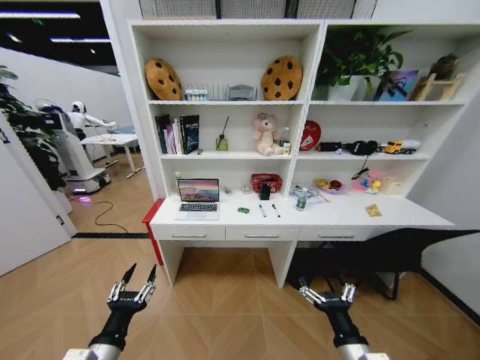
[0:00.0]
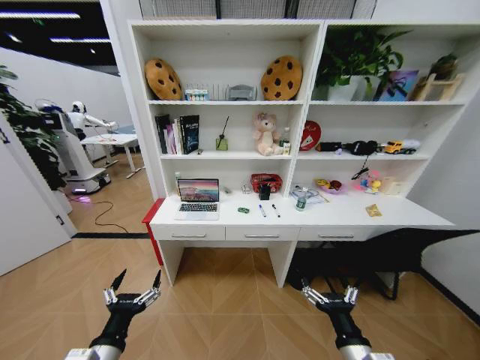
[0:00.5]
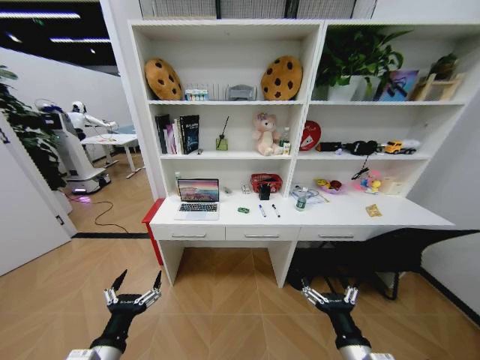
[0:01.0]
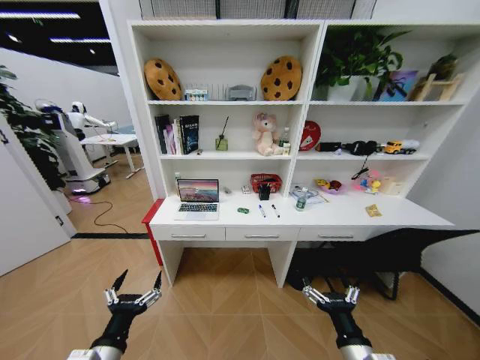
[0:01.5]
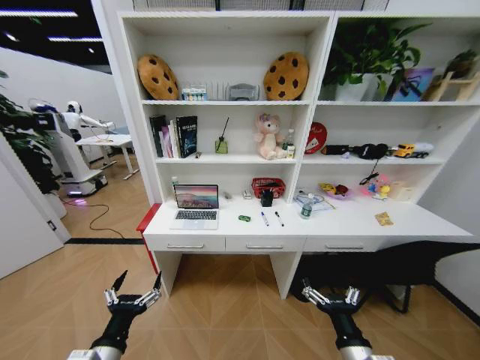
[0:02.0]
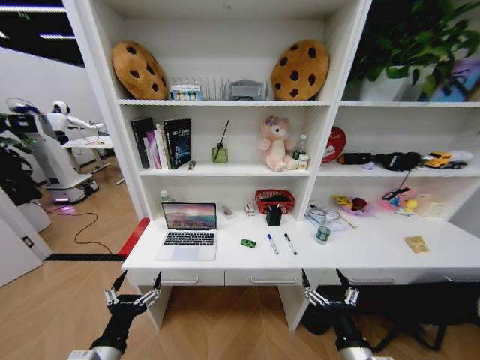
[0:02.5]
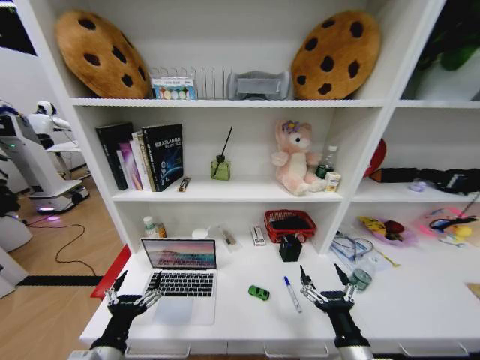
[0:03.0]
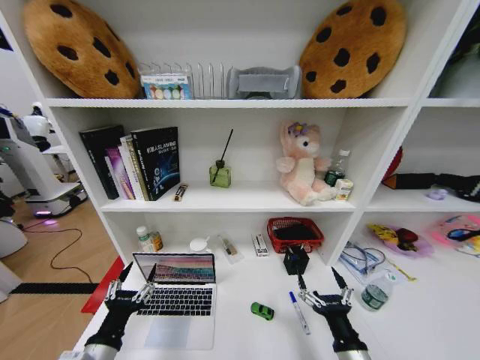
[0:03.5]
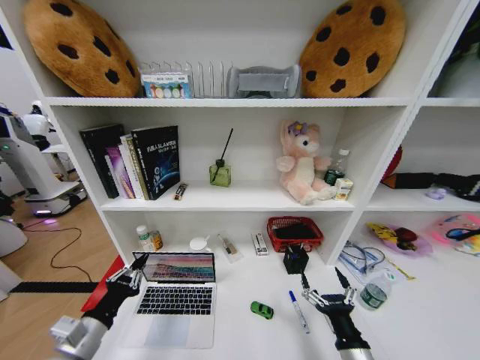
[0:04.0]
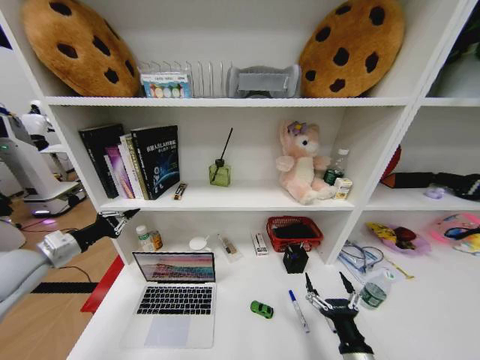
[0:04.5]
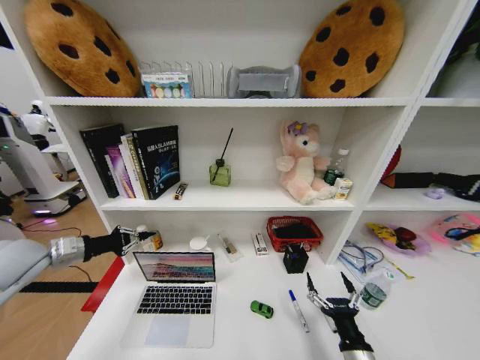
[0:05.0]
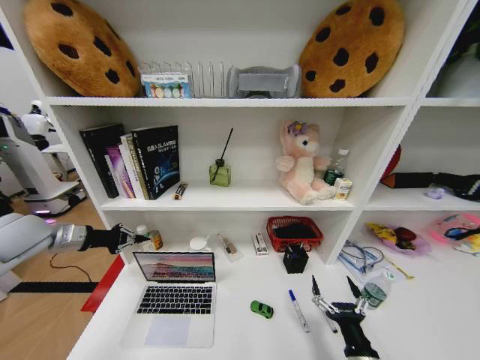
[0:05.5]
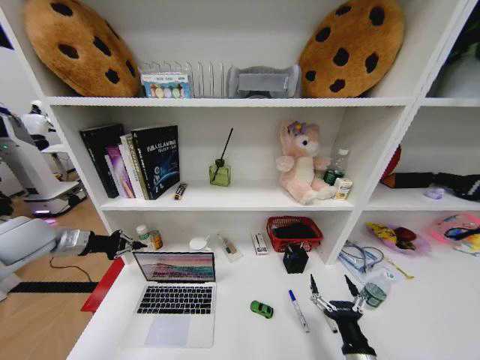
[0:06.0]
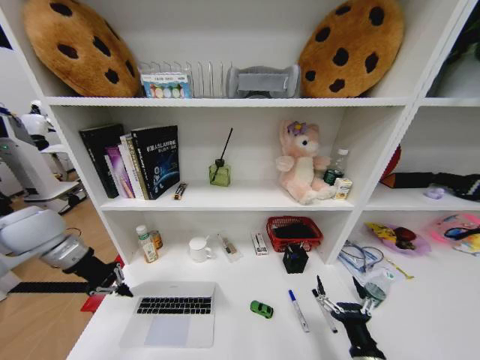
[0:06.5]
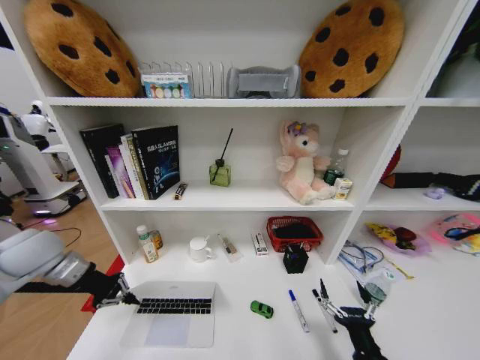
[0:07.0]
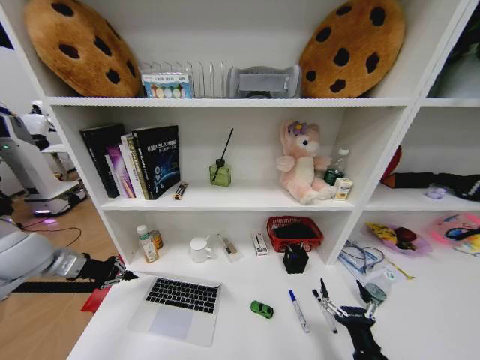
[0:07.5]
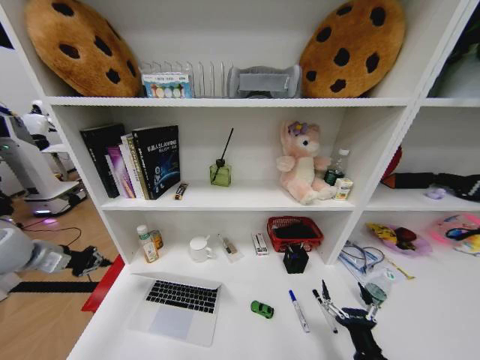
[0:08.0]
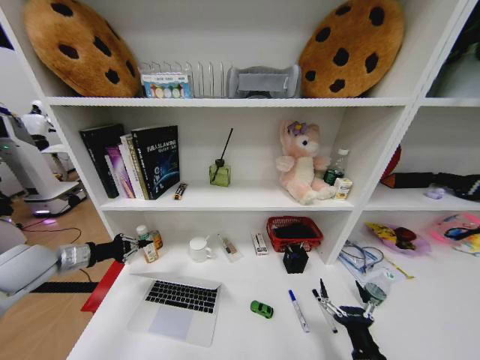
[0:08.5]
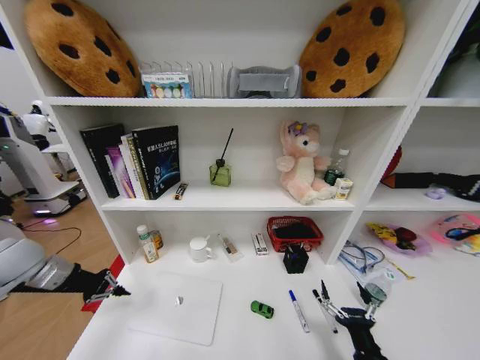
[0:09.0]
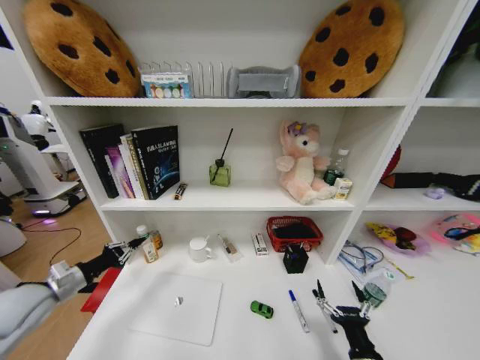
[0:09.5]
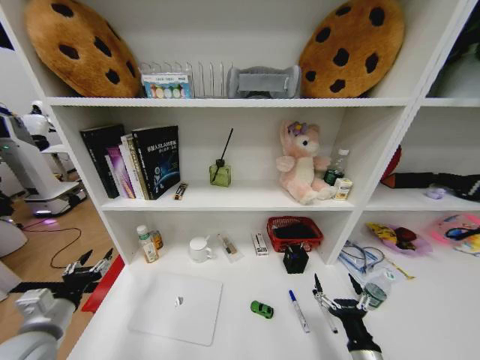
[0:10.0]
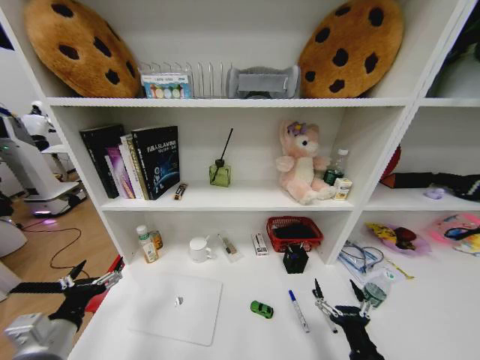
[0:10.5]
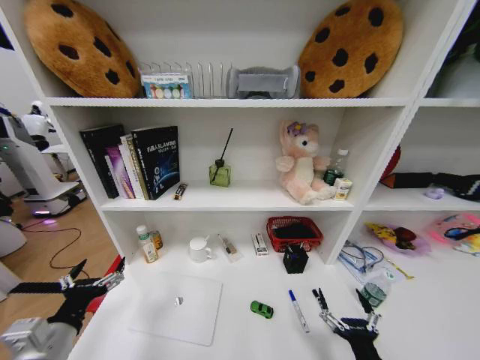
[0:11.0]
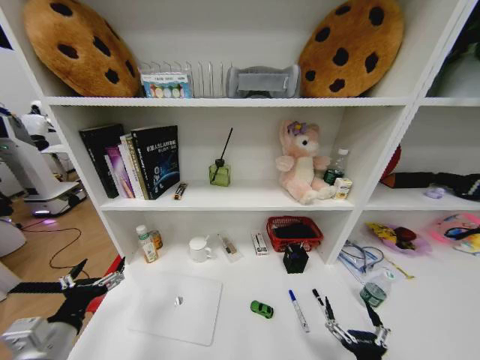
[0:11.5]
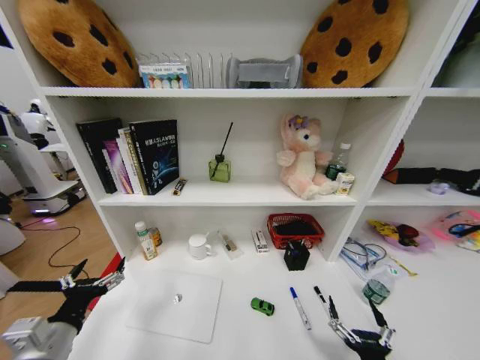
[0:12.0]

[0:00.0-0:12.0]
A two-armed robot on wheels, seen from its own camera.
Task of the whole recording: Organize the objects on the table.
2.0 to 4.0 s: The left gripper travels to the left by about 5 cm, and closes up.
4.0 to 6.0 s: The left gripper shifts some 30 cm forward, upward and to the left.
8.0 to 10.0 s: The left gripper goes approximately 25 cm backward, downward and to the right, and opens.
10.0 to 12.0 s: The right gripper goes some 5 cm backward; the left gripper shifts approximately 10 cm to the right and backward, and opens its fingers.

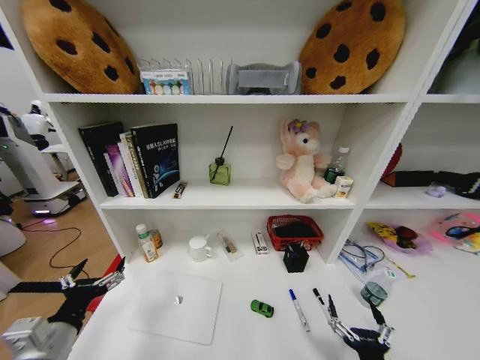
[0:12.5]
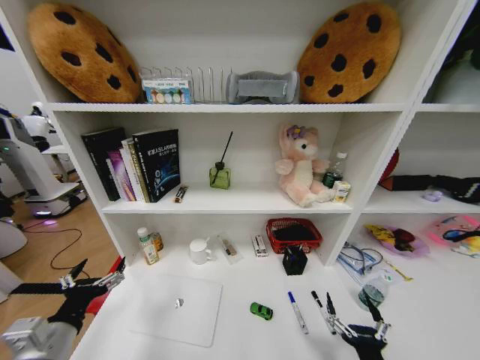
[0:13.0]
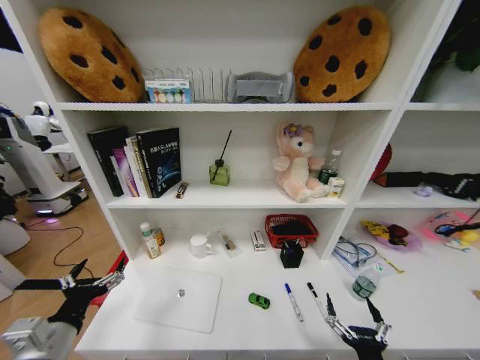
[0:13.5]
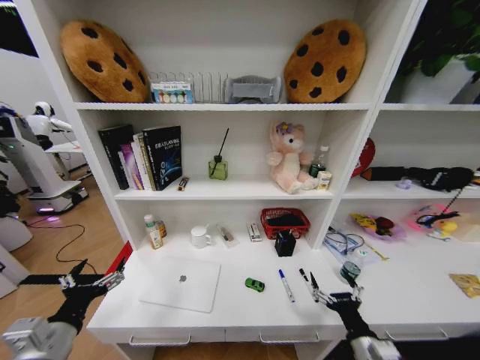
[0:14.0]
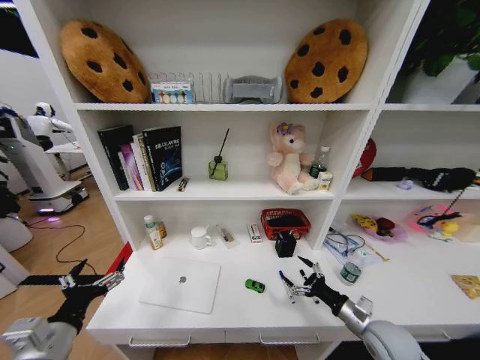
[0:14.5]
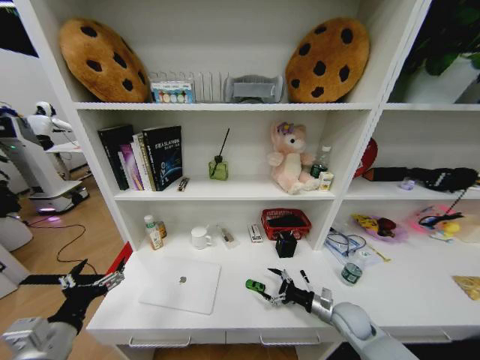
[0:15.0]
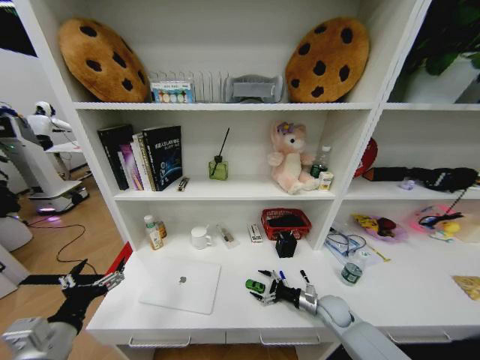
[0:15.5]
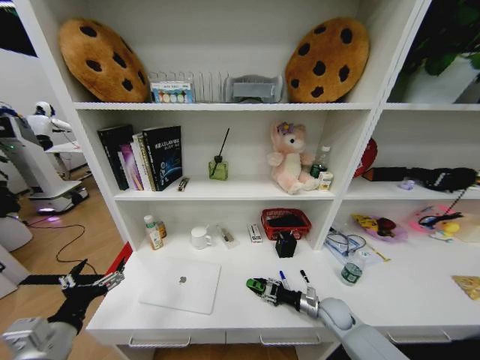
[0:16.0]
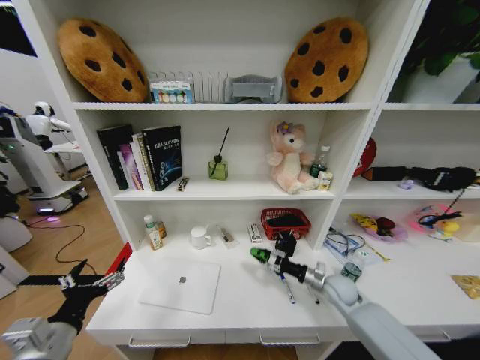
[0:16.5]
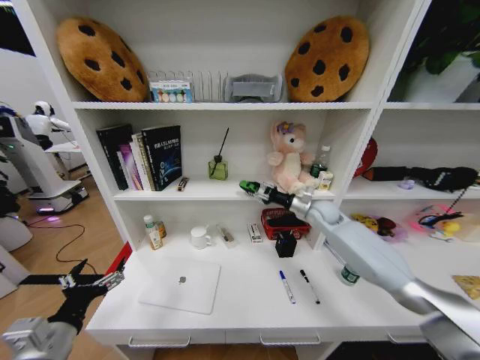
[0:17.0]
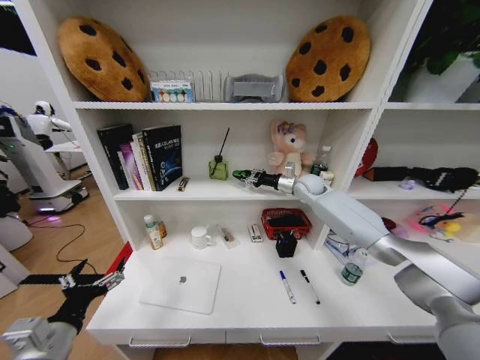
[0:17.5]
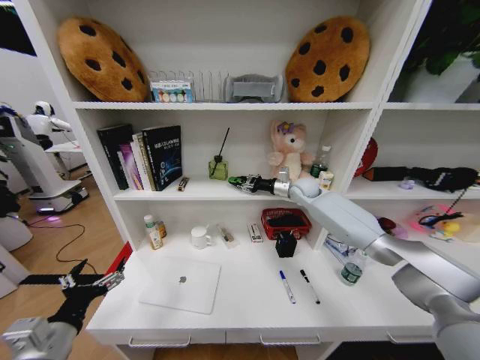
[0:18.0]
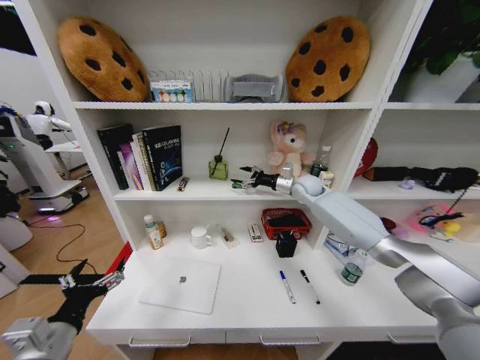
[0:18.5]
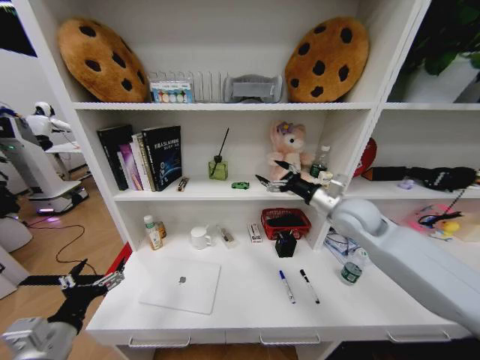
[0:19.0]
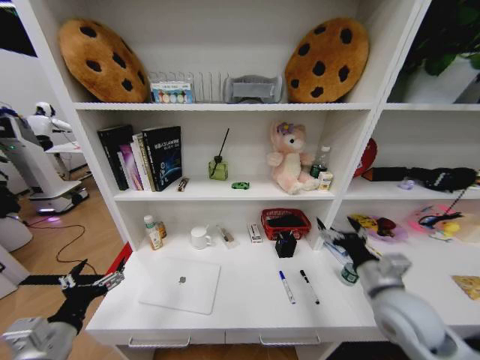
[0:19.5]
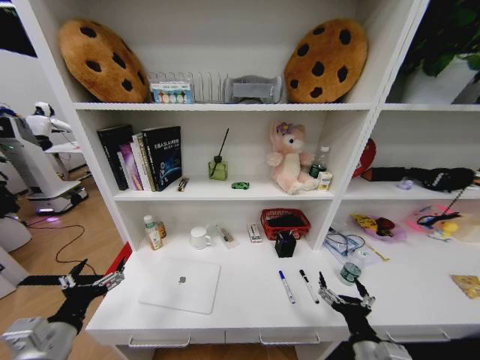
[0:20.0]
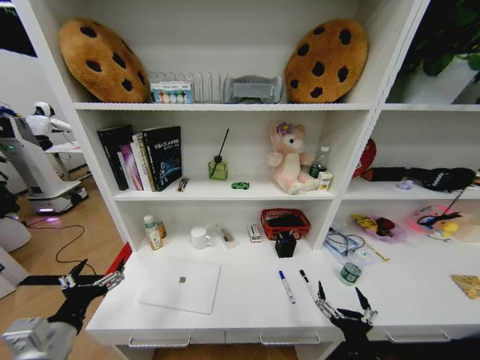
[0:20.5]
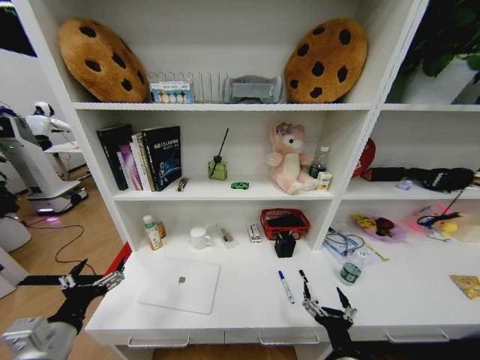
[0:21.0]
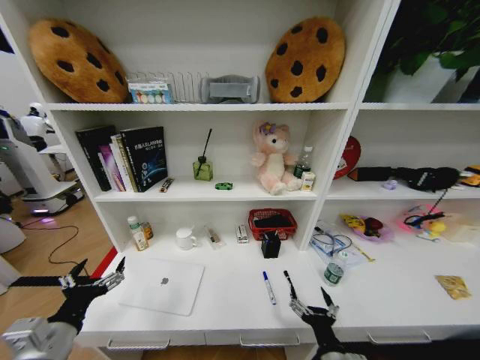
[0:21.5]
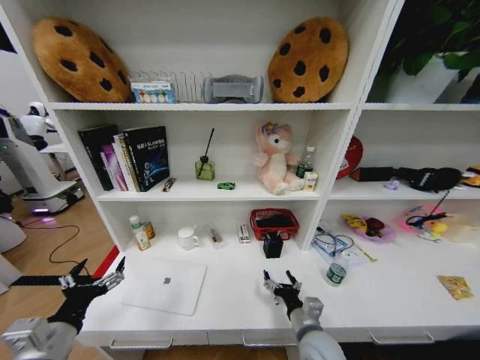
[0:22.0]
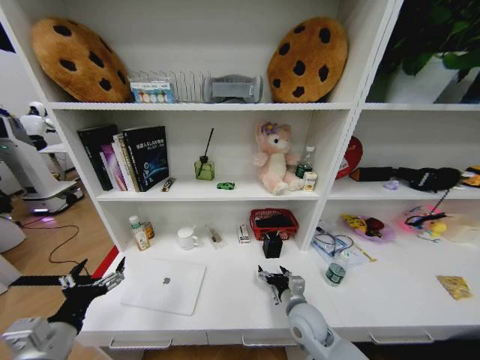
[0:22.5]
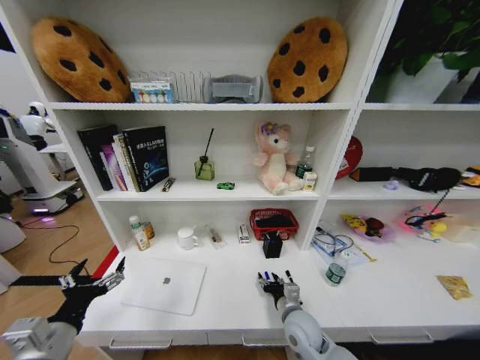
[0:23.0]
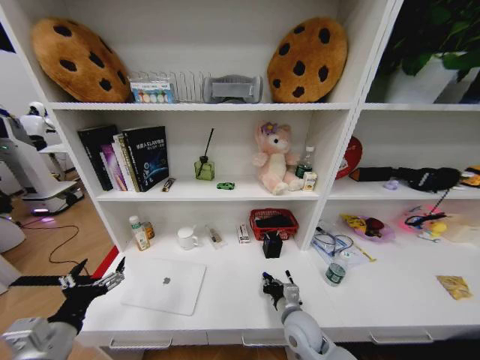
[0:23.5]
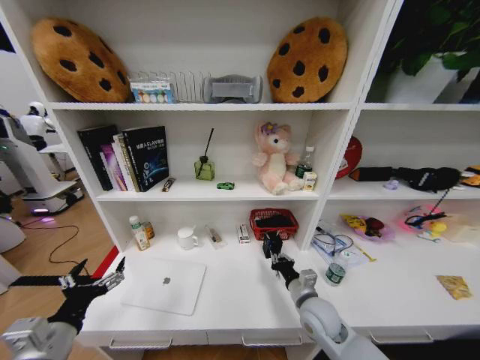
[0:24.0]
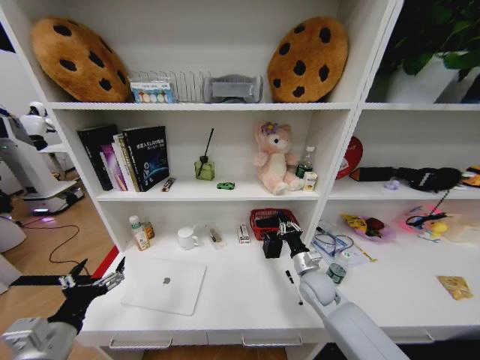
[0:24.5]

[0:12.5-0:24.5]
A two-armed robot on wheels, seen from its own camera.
Task of the whole recording: Organize the objects on the table.
12.5 to 14.5 s: The right gripper shifts approximately 20 cm forward and to the right.
14.5 to 16.5 s: The right gripper goes about 15 cm forward, and closes its fingers.
16.5 to 18.5 s: The right gripper moves upward and forward, some 30 cm, and opens up.
18.5 to 20.5 s: The right gripper moves backward and downward, roughly 60 cm.
20.5 to 22.5 s: The right gripper moves forward, some 20 cm.
22.5 to 24.5 s: The right gripper shifts roughly 10 cm forward and to the right, and closes its fingers.

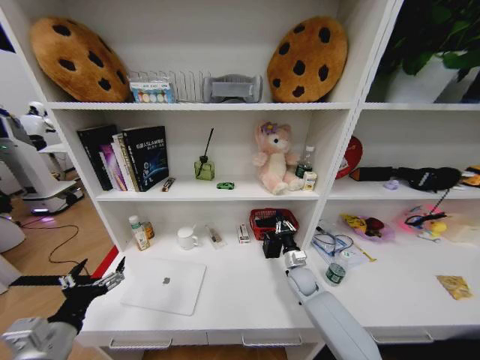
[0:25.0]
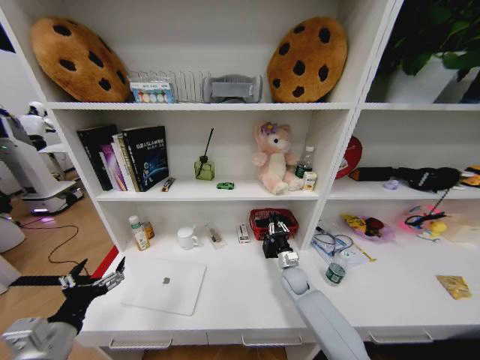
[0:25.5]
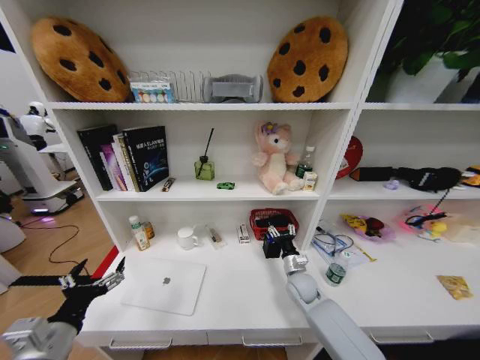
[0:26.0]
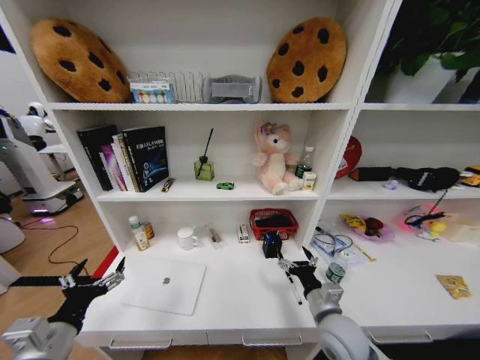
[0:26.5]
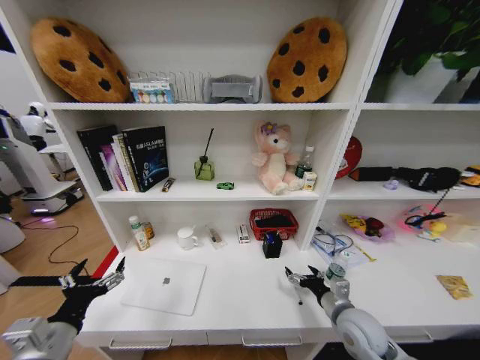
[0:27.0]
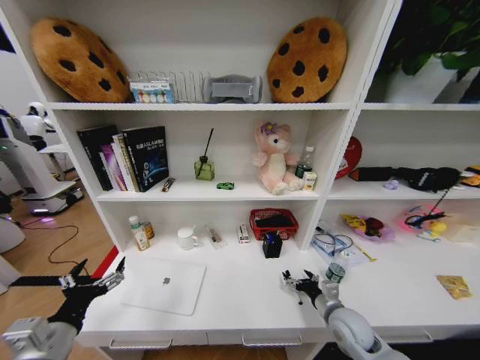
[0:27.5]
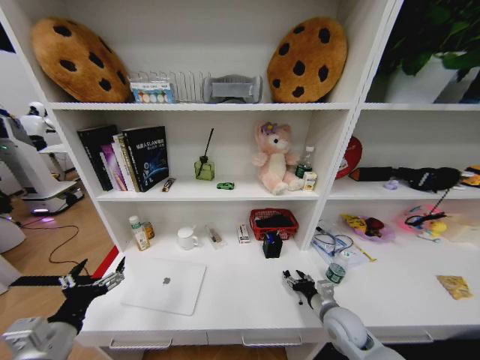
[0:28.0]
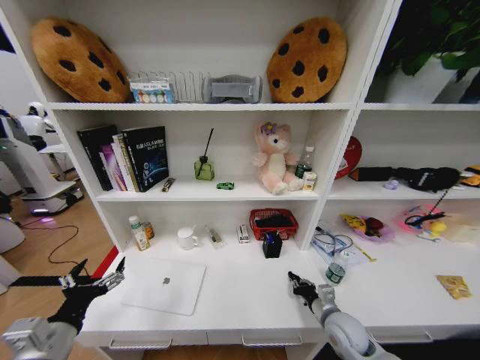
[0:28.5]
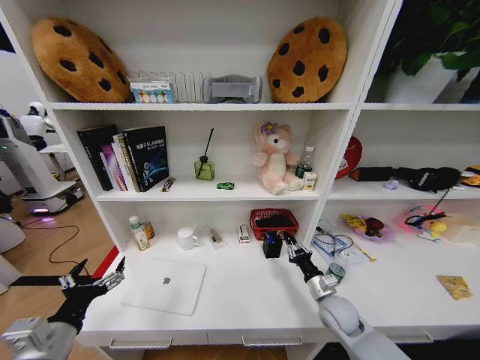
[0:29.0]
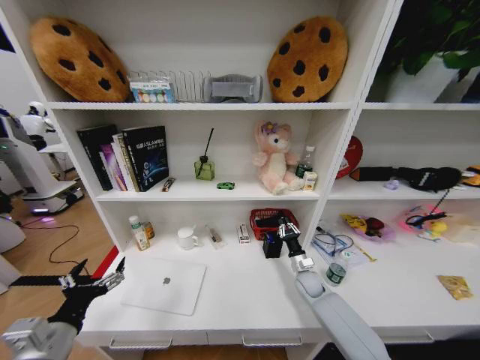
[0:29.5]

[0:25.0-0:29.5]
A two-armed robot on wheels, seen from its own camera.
Task of the whole recording: Organize the objects on the table.
25.0 to 27.0 s: The right gripper goes some 20 cm backward and upward, and opens.
27.0 to 29.5 s: The right gripper shifts roughly 20 cm forward and downward, and closes its fingers.
